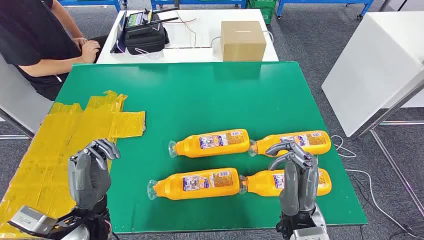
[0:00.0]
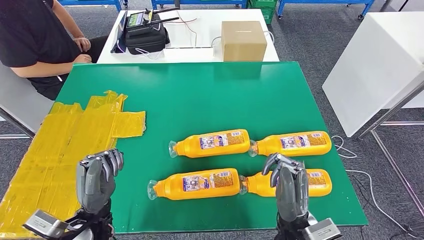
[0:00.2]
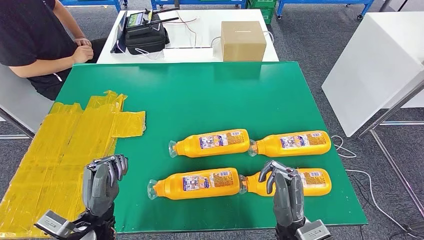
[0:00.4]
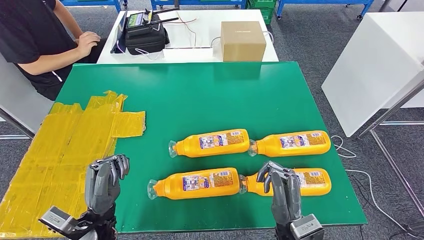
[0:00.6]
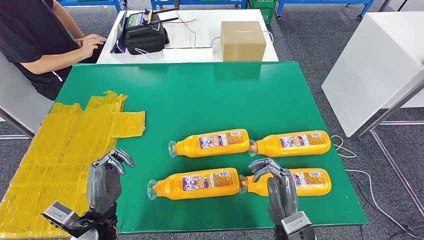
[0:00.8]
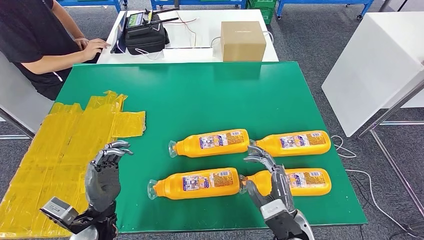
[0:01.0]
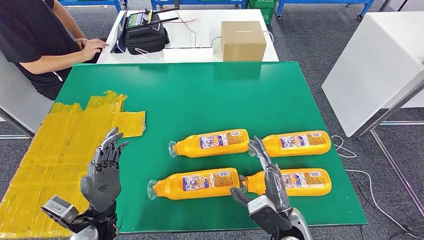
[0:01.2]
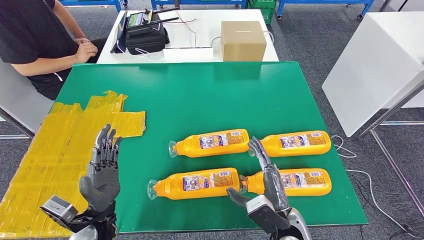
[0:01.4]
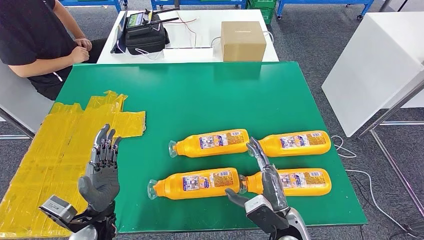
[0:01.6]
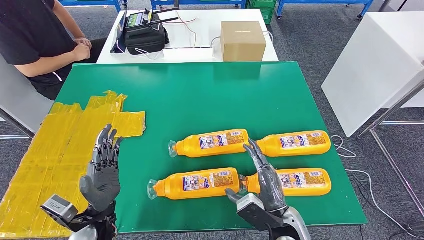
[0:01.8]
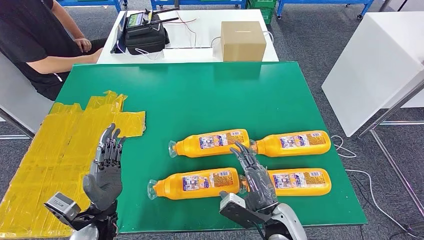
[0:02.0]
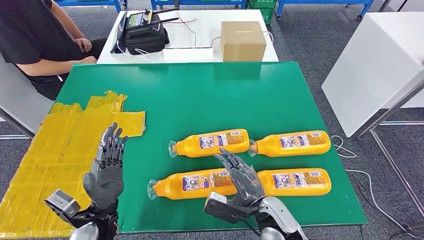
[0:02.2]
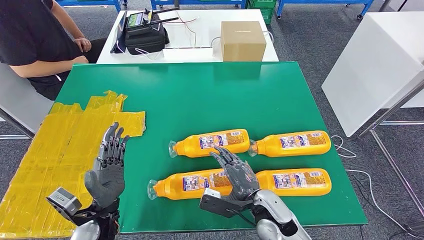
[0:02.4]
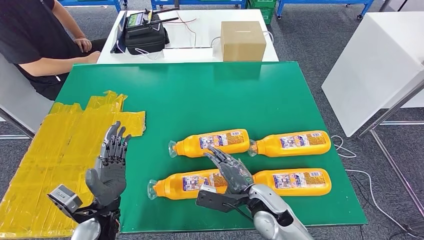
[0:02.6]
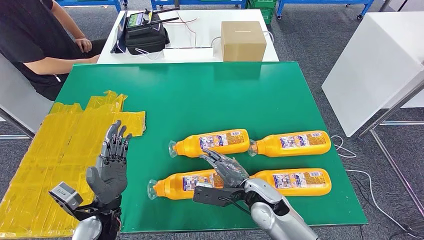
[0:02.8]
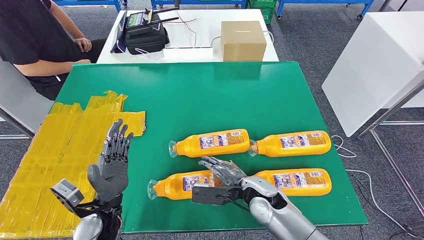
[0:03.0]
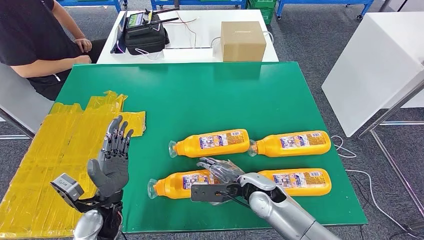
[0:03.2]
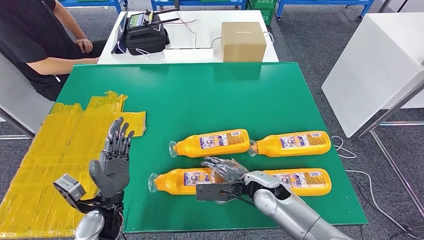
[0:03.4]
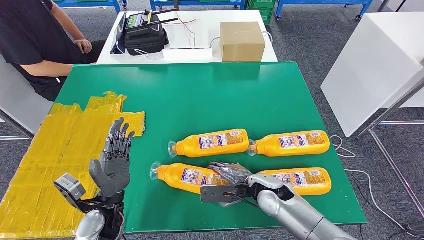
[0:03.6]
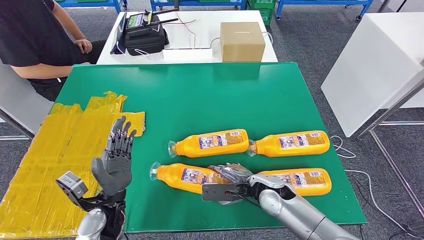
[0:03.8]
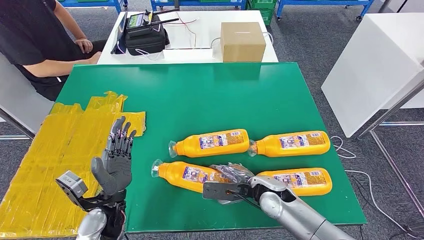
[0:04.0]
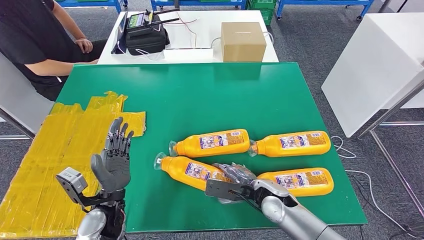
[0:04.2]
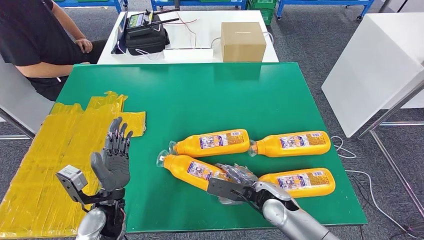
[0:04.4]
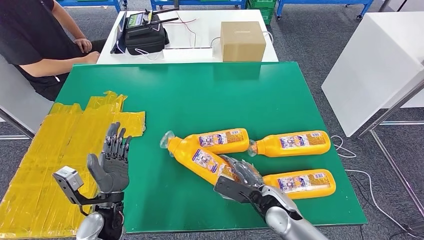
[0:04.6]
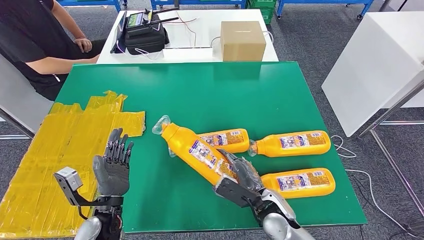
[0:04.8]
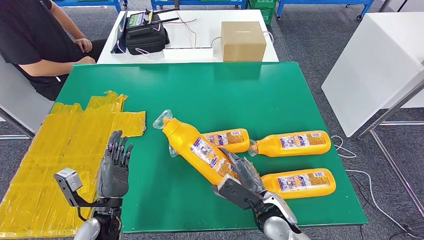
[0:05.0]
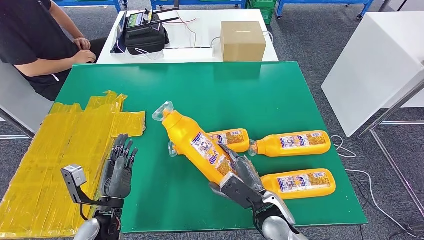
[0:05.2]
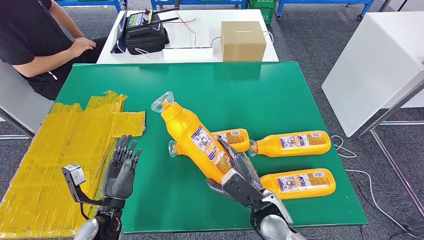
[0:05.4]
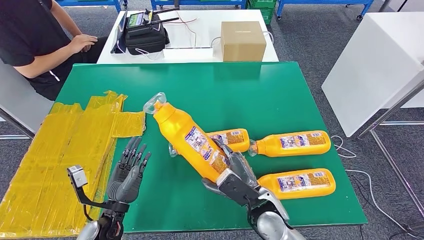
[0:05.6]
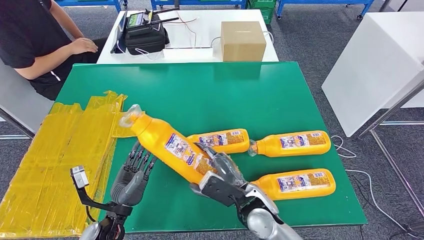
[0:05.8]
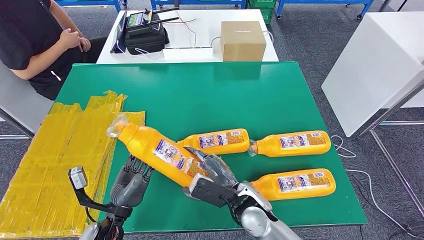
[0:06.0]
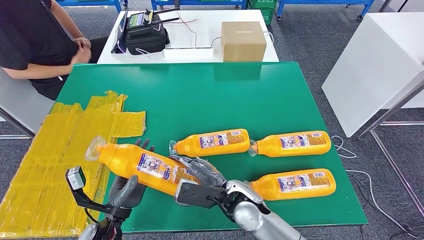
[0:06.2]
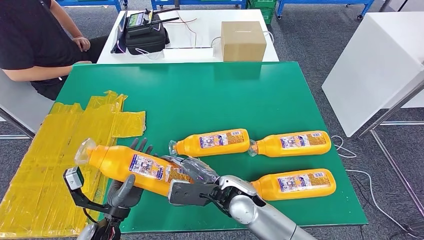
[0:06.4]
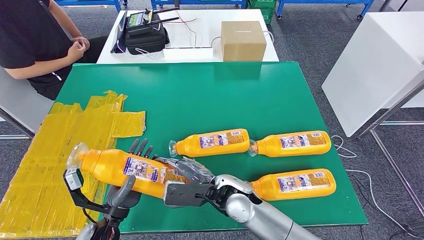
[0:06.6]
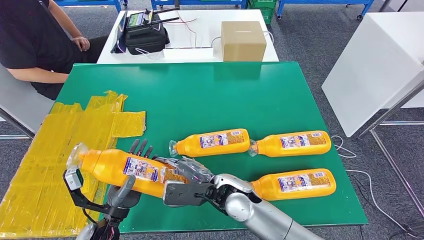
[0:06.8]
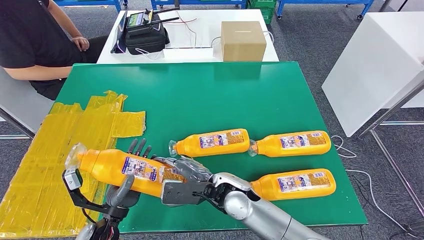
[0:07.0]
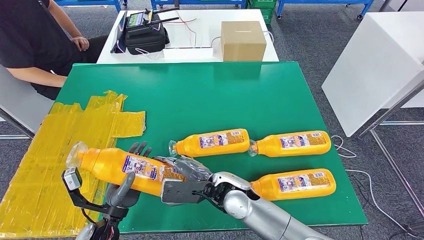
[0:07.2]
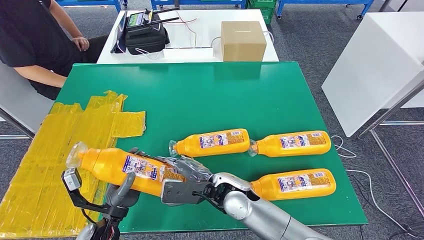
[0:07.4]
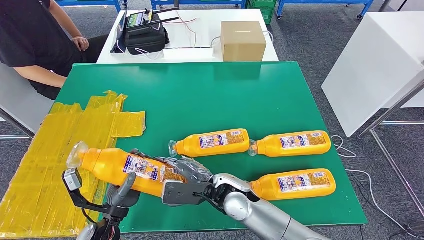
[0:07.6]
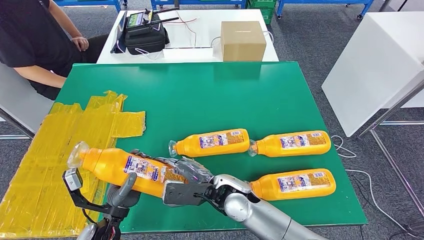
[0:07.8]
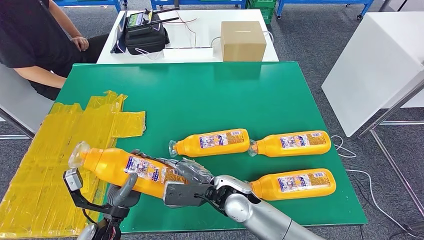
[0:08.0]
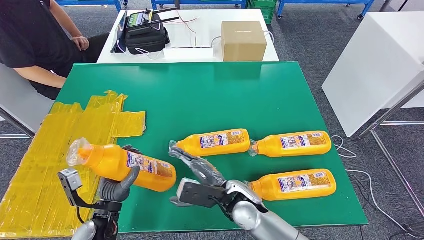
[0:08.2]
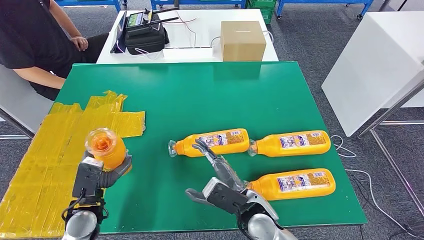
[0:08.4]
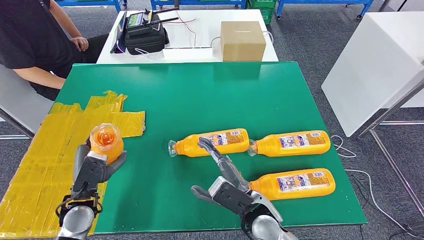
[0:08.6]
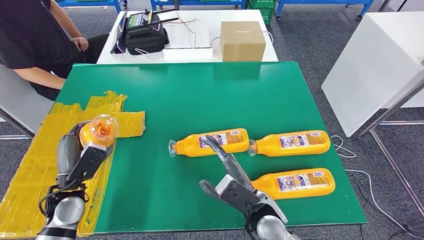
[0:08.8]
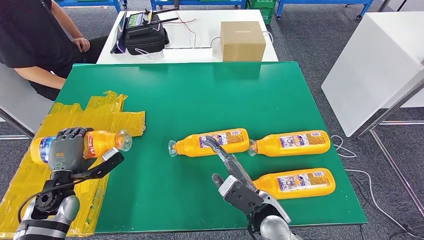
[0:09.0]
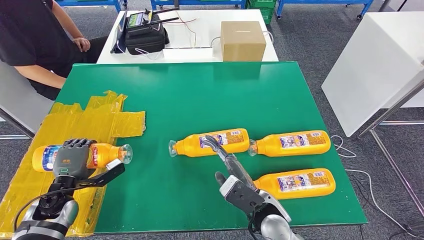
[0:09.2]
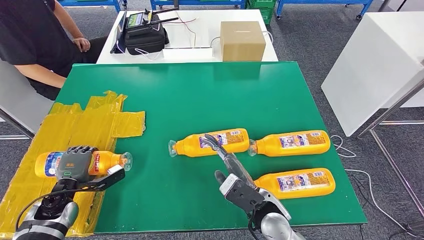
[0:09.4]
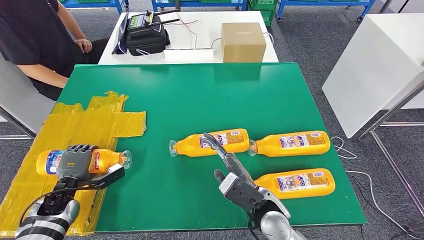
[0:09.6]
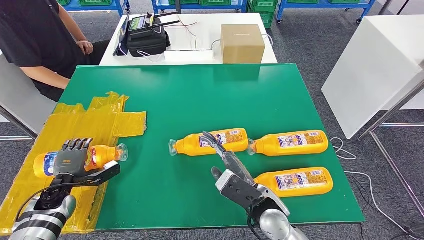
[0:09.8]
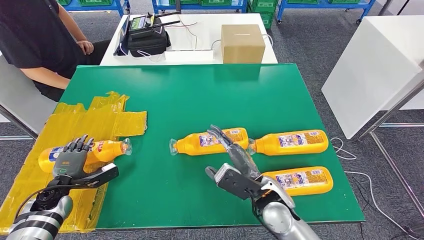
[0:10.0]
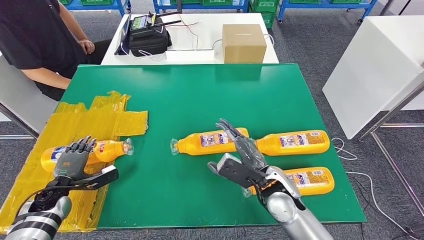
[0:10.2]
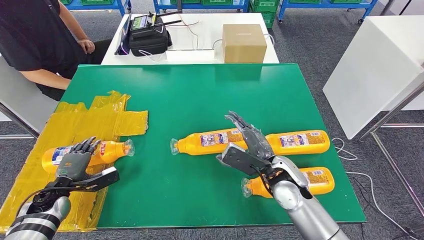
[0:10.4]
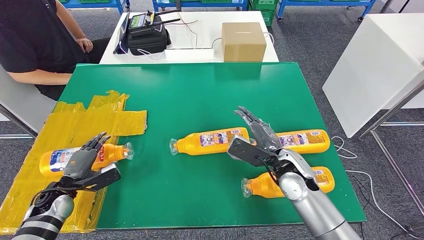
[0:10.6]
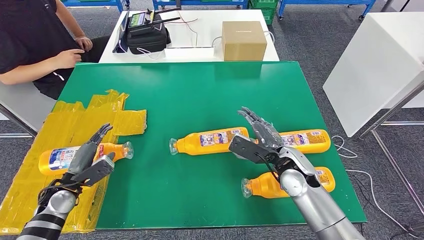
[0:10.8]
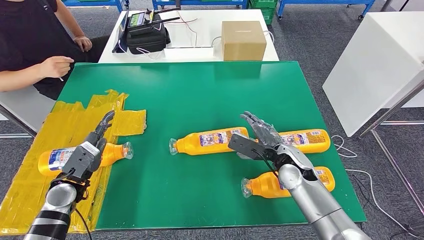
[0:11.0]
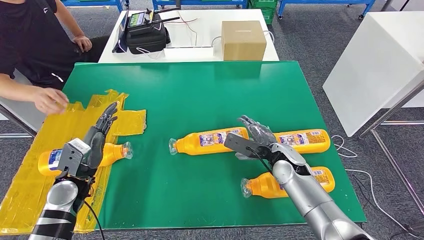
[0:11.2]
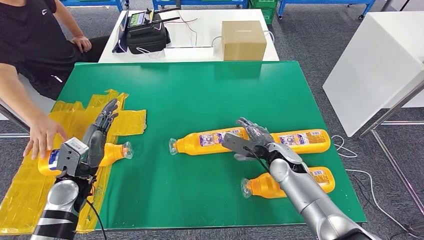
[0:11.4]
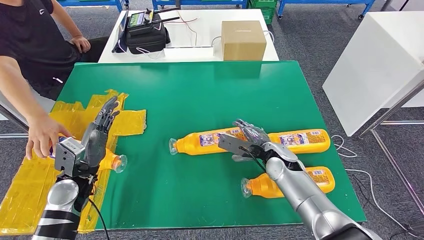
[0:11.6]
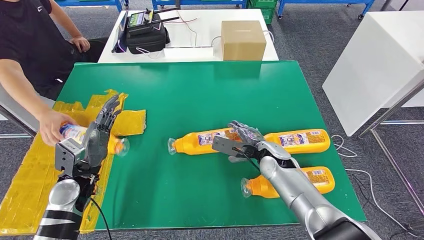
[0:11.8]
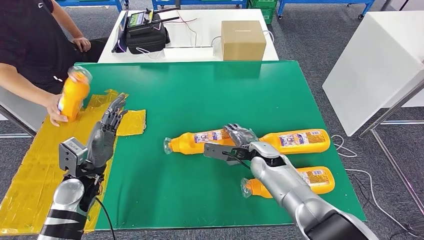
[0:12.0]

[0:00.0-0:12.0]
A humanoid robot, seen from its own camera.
Step, 0.0 to 6.4 s: Take the fast-moving consumer goods bottle from the table.
Step, 6.6 to 11.4 s: Flip the fast-moving consumer goods bottle to the front side.
1.6 to 3.0 s: The right hand heads forward and to the left, covering some 10 cm.
3.0 to 4.4 s: The hands stay close to where they were, moving slightly.
4.4 to 6.0 s: The right hand travels to the left by approximately 5 cm.
7.6 to 9.0 s: The left hand moves to the left and forward, roughly 15 cm. The right hand is displaced to the right by about 10 cm.

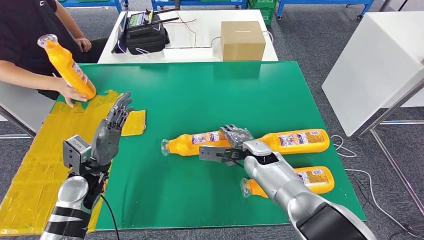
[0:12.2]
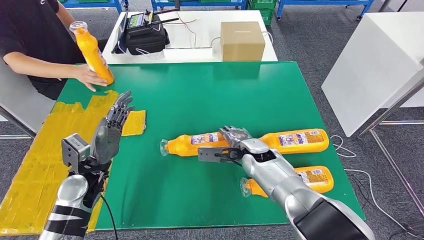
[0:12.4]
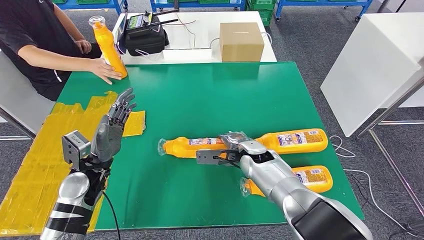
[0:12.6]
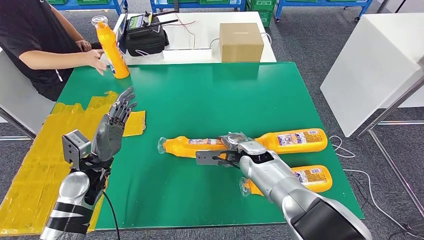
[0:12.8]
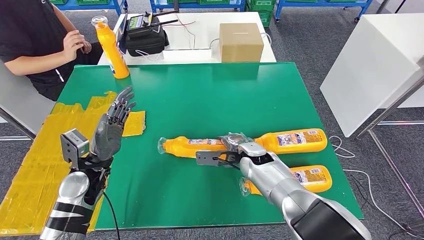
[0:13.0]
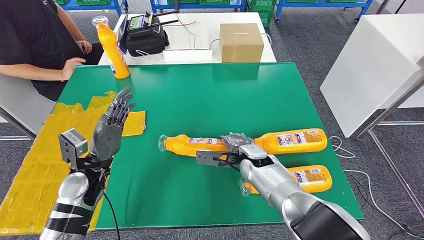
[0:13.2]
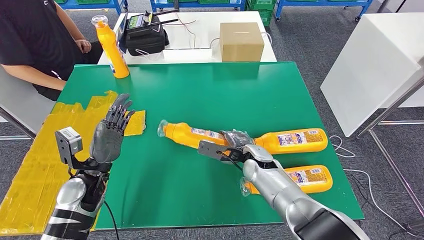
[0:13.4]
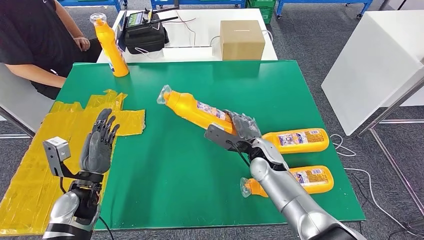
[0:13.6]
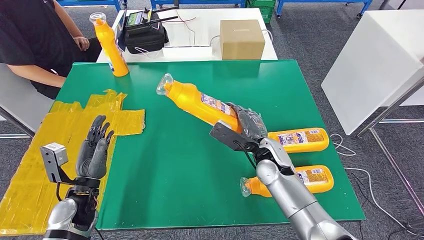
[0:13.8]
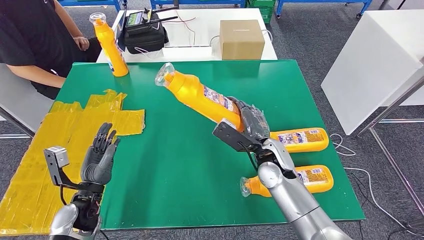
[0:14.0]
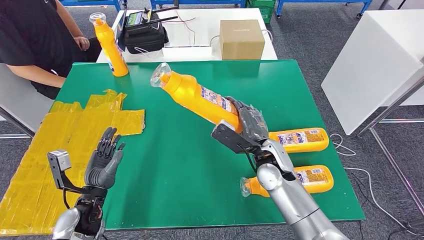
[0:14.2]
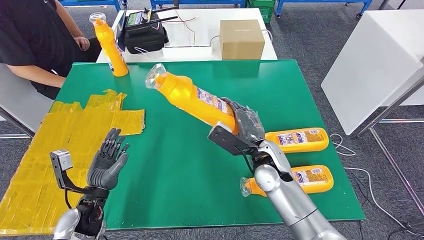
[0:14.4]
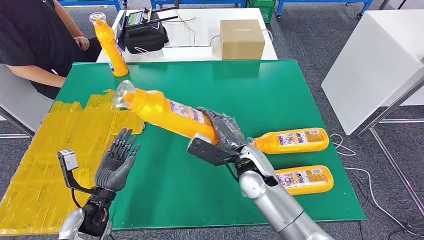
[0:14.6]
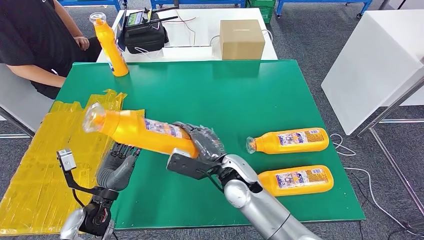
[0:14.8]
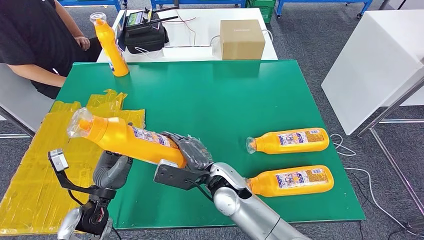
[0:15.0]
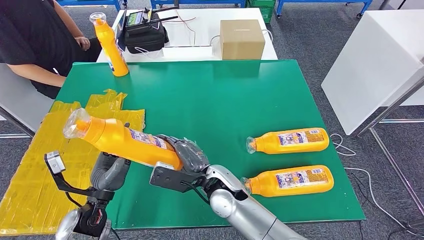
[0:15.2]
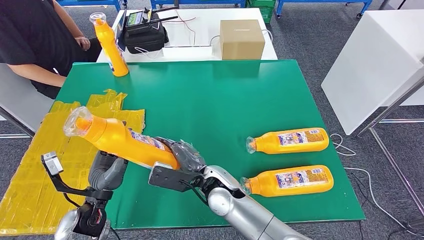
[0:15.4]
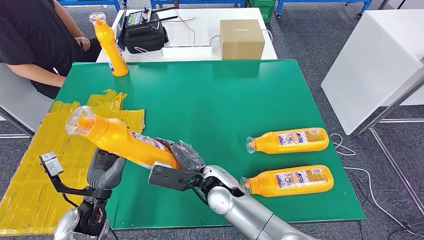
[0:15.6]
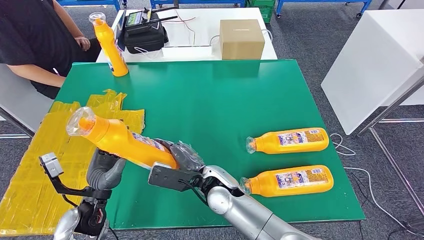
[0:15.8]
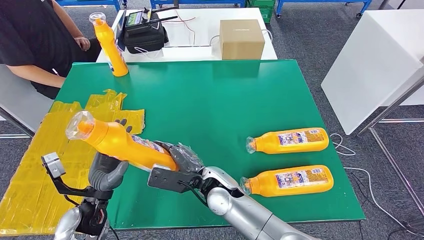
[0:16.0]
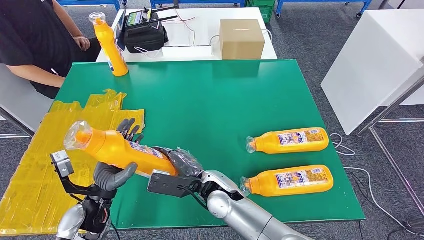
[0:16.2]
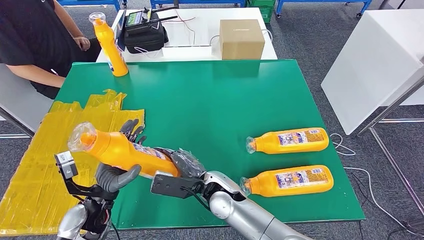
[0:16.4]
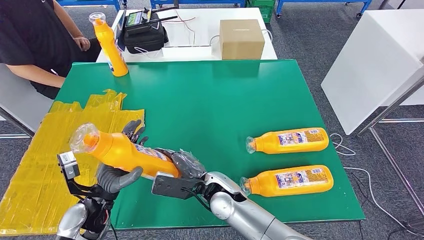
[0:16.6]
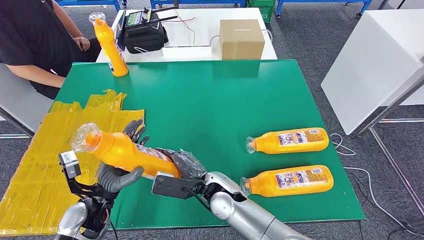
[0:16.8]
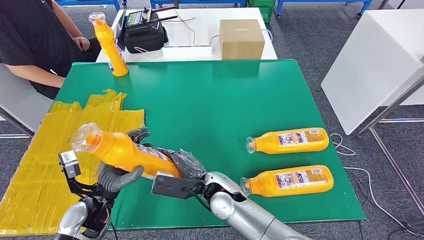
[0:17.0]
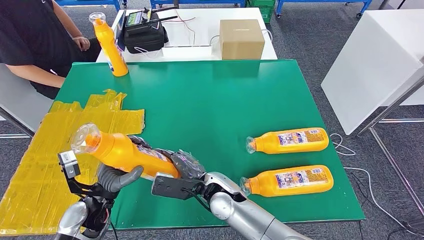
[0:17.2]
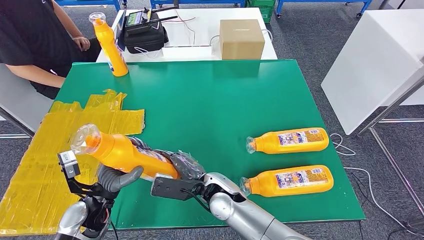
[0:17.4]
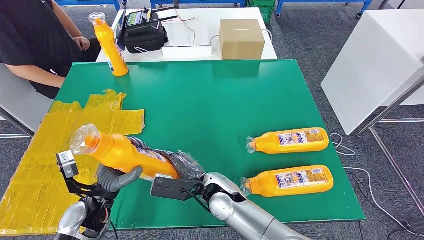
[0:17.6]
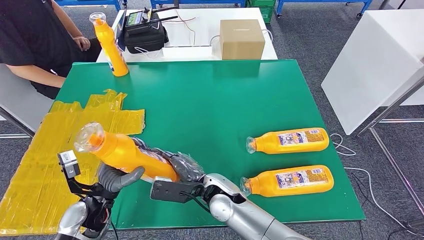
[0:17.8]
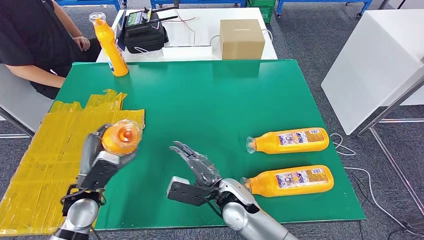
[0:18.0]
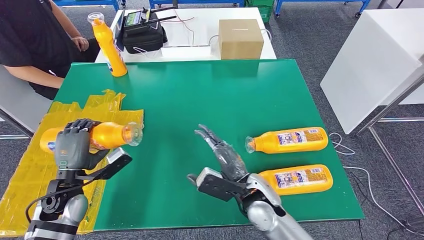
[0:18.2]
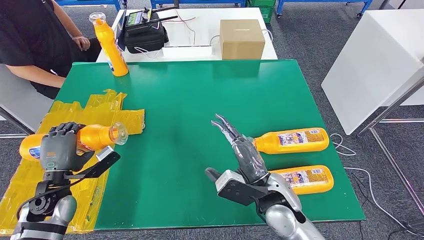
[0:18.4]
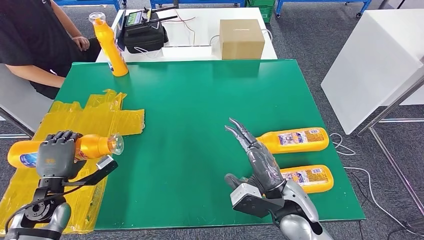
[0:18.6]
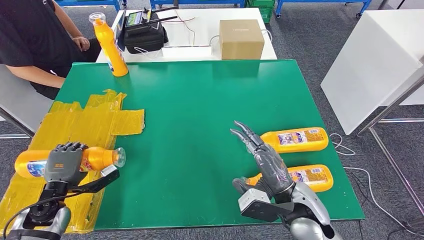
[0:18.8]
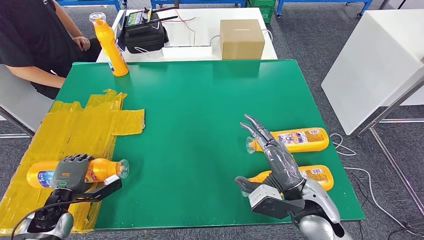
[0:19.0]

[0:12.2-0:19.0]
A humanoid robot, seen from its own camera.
Step, 12.2 to 16.8 s: Pick up the fast-moving consumer goods bottle from the table.
13.6 to 15.0 s: The right hand goes roughly 15 cm to the left and backward.
15.0 to 16.2 s: The hands move only a little.
16.2 to 17.6 s: There are only small adjustments of the hands.
17.6 to 19.0 s: The left hand moves to the left and downward, about 15 cm. Meanwhile the right hand heads to the right, covering some 20 cm.
